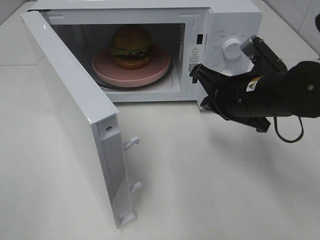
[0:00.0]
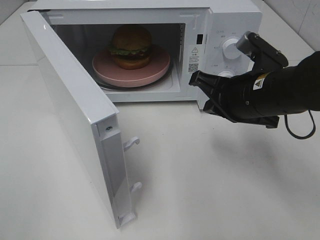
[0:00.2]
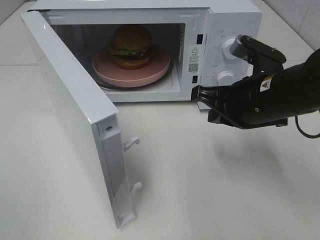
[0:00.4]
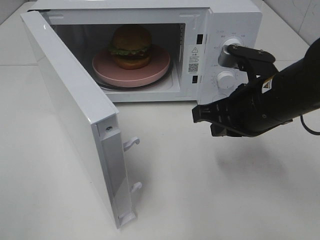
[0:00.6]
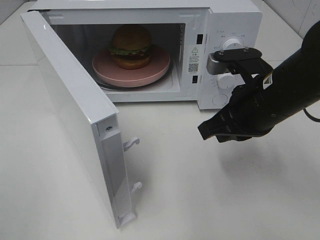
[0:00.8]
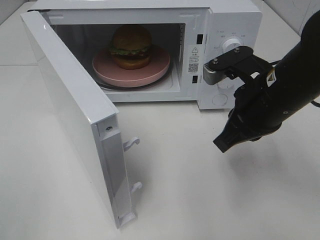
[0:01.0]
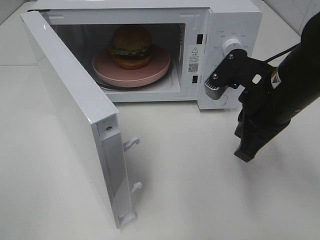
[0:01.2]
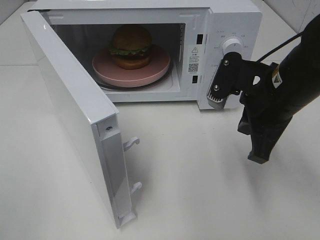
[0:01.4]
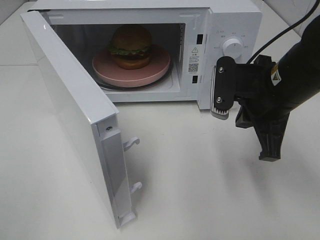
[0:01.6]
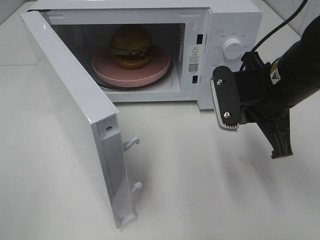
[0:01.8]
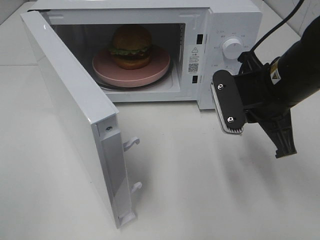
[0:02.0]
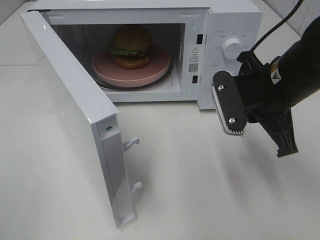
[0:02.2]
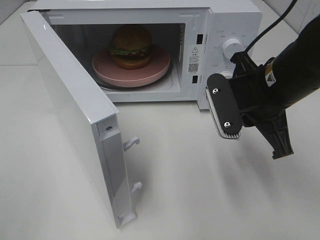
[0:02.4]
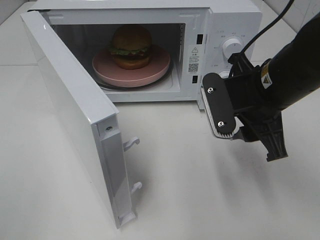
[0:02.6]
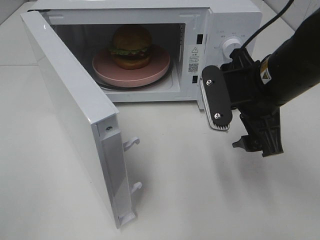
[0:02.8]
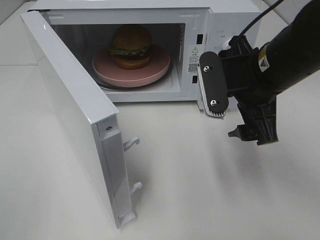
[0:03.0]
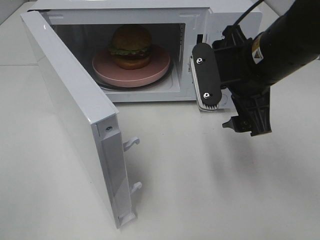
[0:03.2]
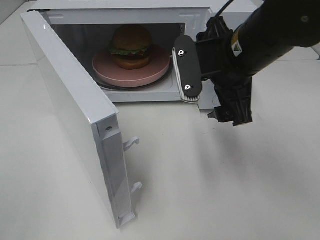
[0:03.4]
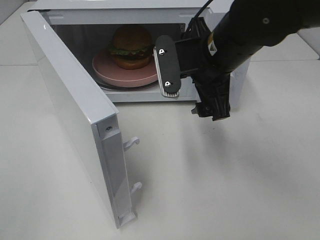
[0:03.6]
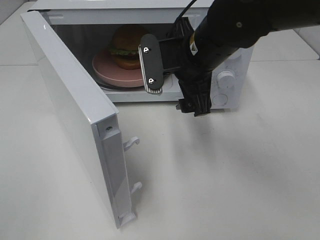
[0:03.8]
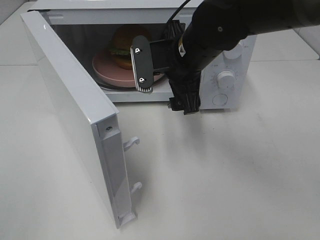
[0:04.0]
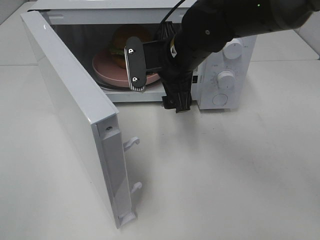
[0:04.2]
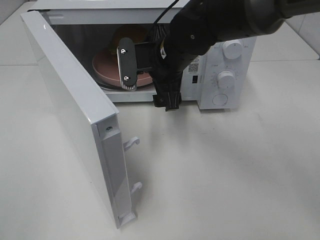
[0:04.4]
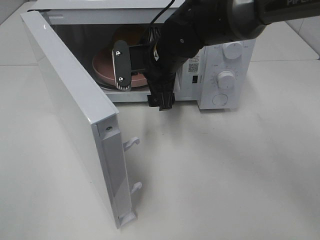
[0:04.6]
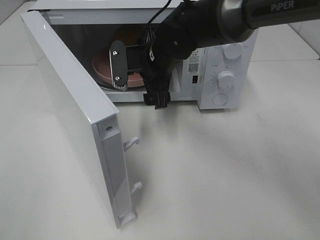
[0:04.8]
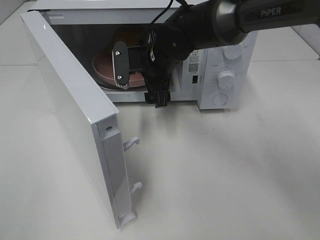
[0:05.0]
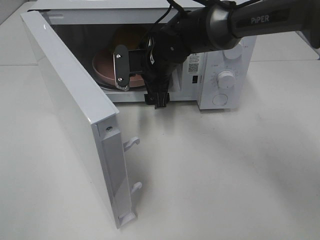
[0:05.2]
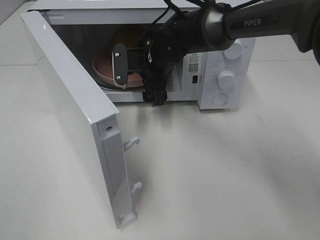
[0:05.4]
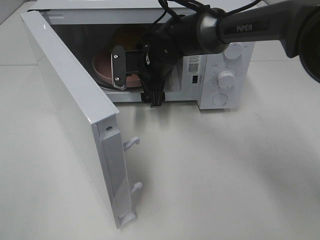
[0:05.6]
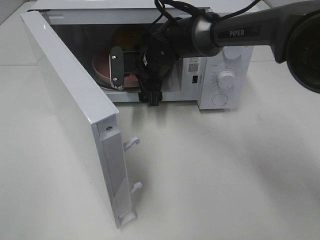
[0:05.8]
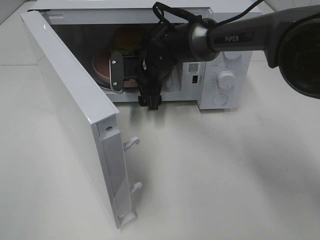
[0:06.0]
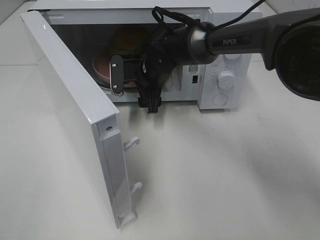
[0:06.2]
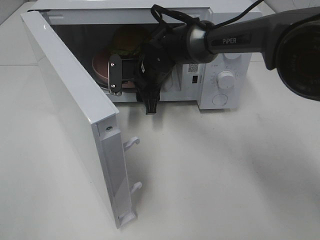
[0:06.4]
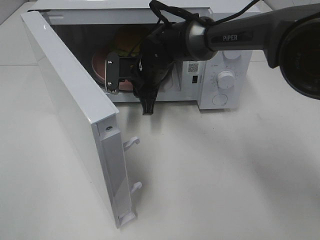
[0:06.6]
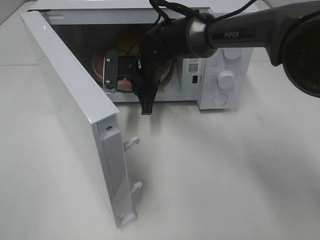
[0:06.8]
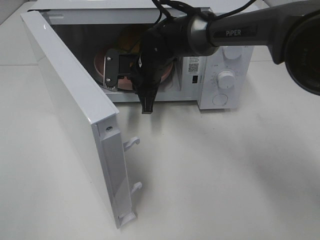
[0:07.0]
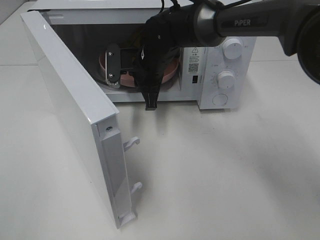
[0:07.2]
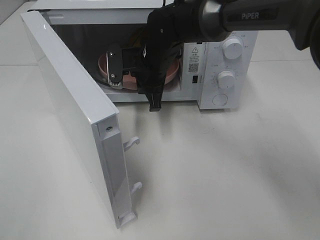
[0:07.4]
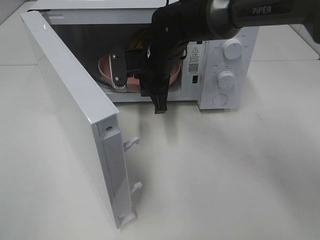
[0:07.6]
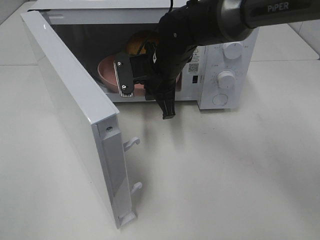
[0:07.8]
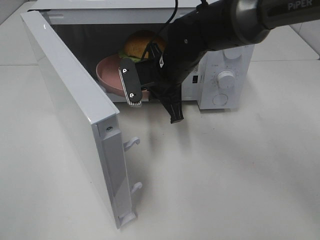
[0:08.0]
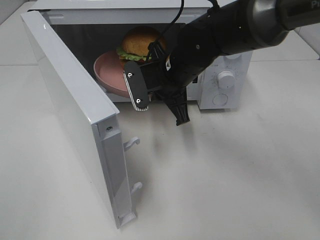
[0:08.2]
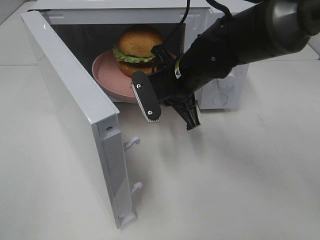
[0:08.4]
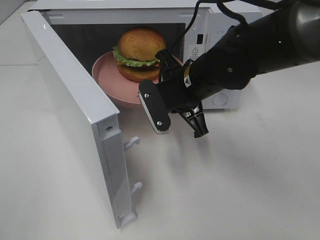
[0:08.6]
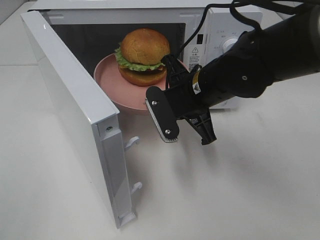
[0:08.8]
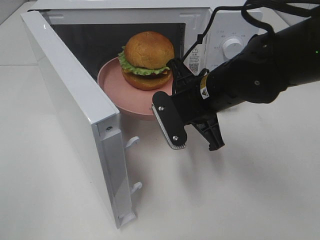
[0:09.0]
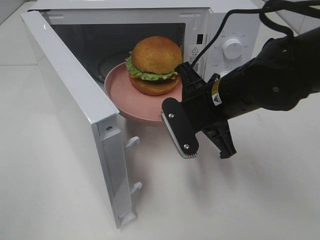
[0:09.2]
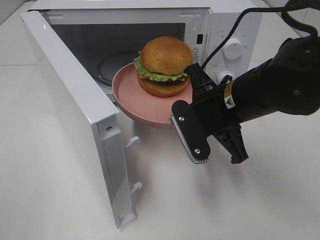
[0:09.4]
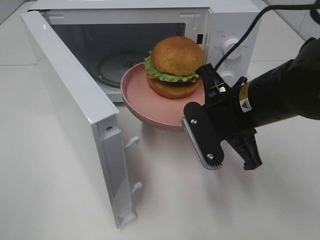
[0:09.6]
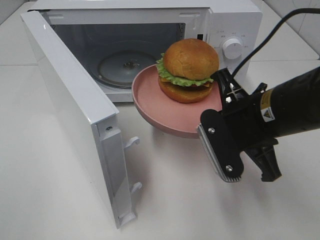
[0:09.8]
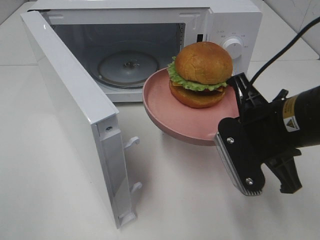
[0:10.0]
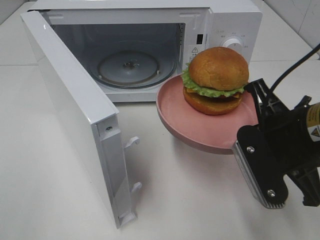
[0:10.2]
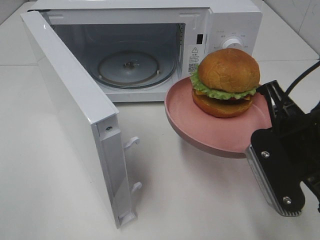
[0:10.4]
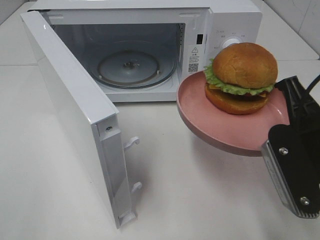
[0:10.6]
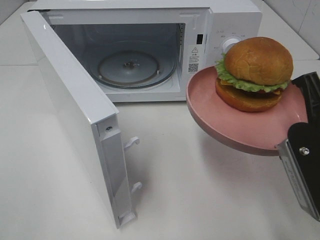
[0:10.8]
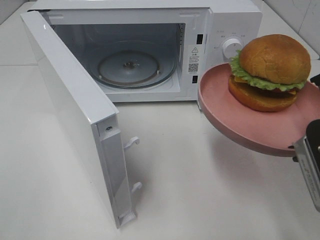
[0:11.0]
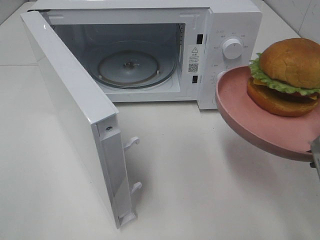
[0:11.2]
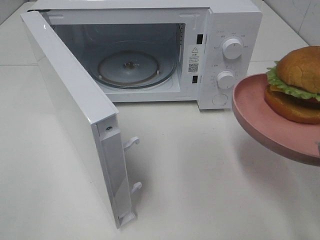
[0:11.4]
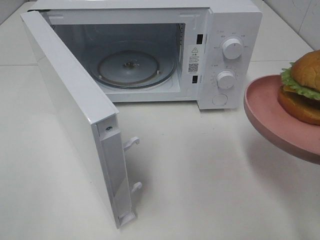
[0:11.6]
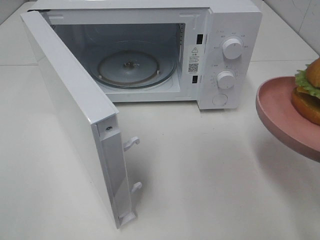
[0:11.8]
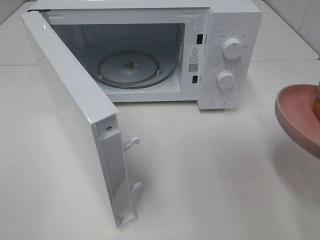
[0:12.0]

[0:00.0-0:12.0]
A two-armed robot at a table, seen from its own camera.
Task of the whole recording: Heat the burger.
Step, 0:00.0 to 0:07.0: Right hand: grab the plate with the hamburger.
0:01.6 to 0:03.0: The right gripper opens up.
0:03.0 to 0:04.4: The right gripper goes approximately 15 cm to the left and forward.
0:04.4 to 0:06.0: The right gripper goes about 10 cm forward and downward.
0:06.0 to 0:07.6: The right gripper ends up roughly 5 cm from where it was, and closes up.
0:07.6 to 0:09.0: The right gripper heads backward and to the right, covering approximately 15 cm.
0:09.0 to 0:10.4: The right gripper goes roughly 15 cm backward and to the right.
0:10.4 to 0:12.0: The right gripper shifts roughly 10 cm to the right and backward.

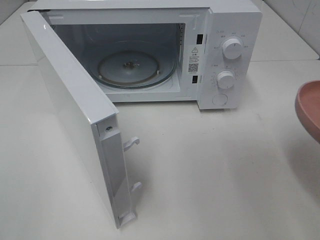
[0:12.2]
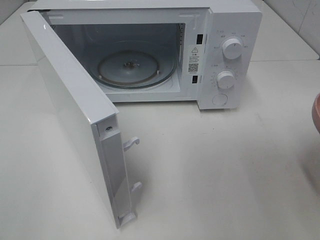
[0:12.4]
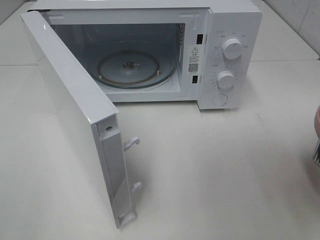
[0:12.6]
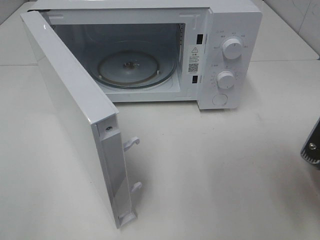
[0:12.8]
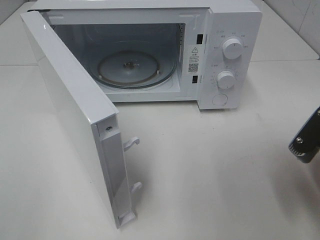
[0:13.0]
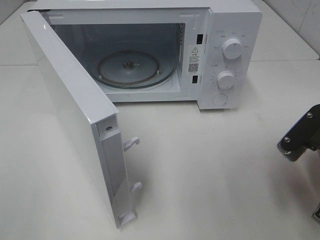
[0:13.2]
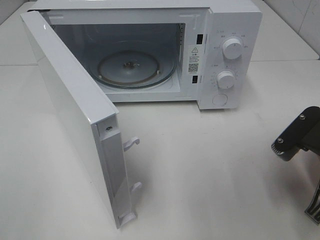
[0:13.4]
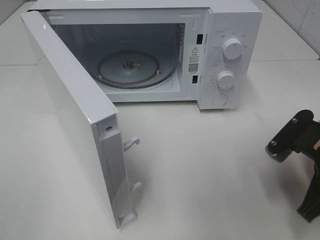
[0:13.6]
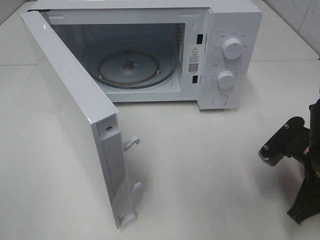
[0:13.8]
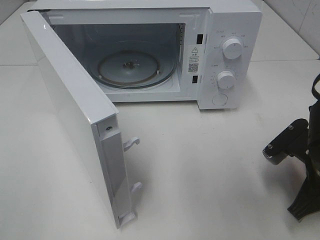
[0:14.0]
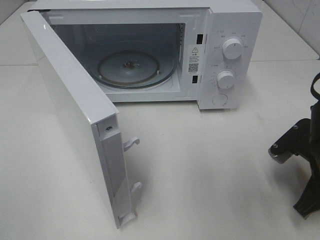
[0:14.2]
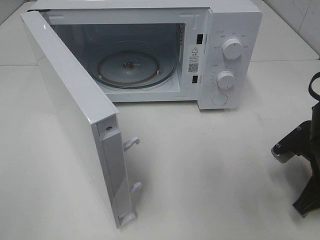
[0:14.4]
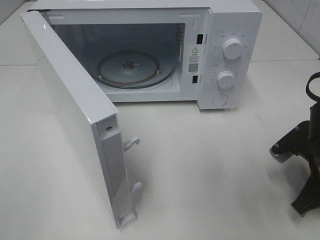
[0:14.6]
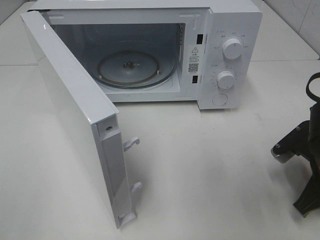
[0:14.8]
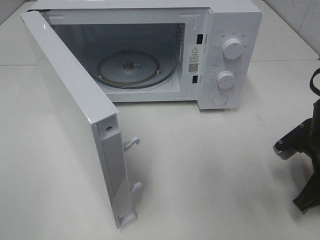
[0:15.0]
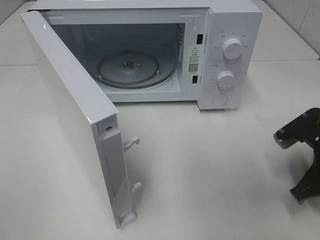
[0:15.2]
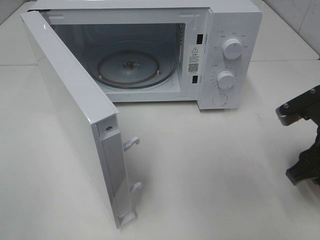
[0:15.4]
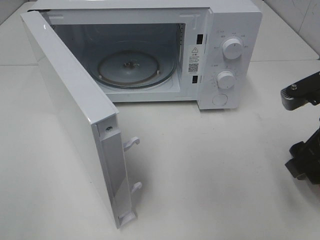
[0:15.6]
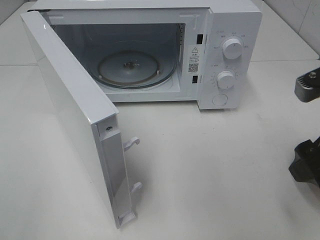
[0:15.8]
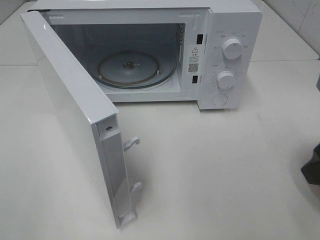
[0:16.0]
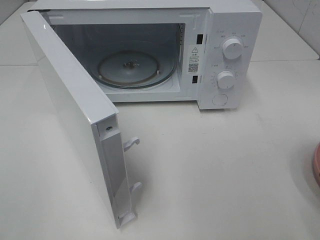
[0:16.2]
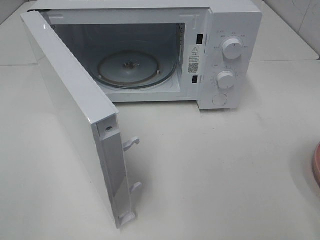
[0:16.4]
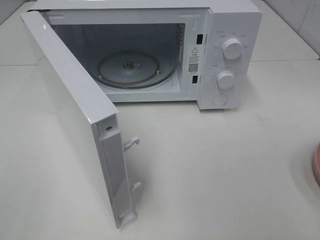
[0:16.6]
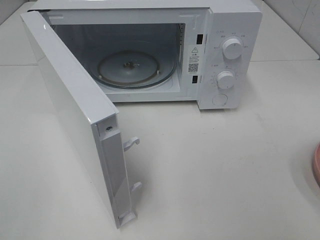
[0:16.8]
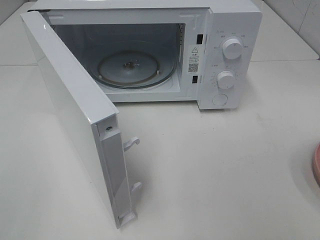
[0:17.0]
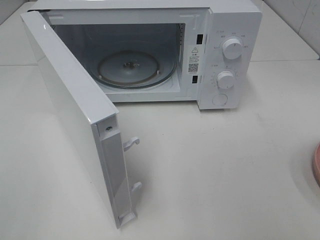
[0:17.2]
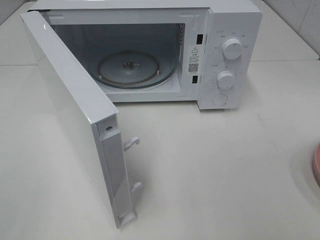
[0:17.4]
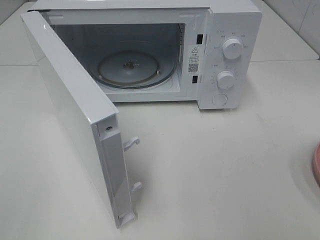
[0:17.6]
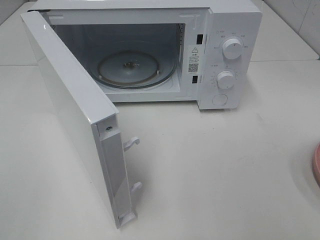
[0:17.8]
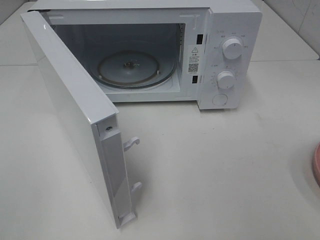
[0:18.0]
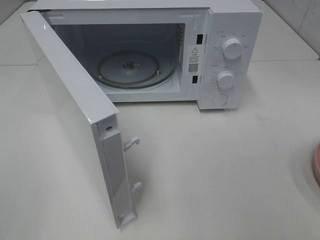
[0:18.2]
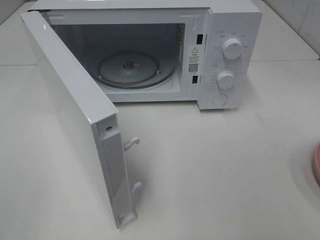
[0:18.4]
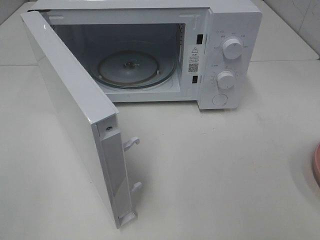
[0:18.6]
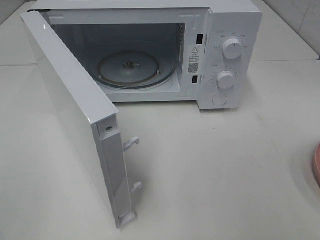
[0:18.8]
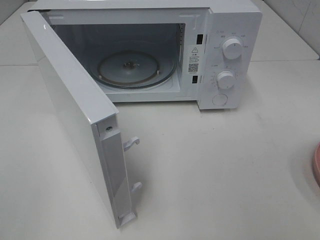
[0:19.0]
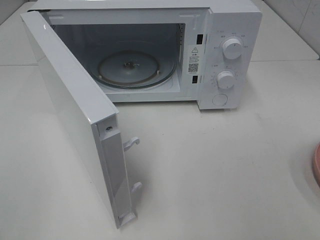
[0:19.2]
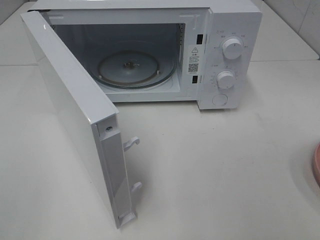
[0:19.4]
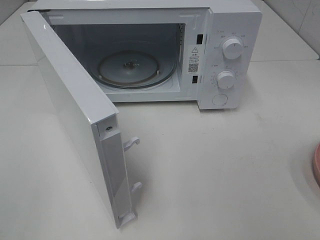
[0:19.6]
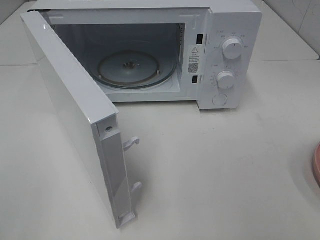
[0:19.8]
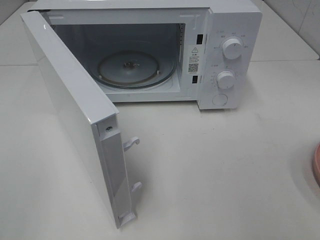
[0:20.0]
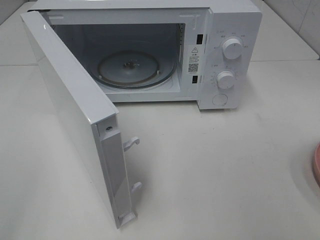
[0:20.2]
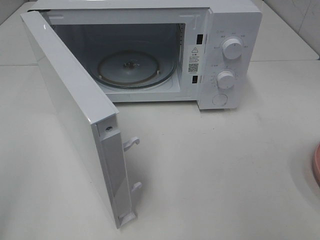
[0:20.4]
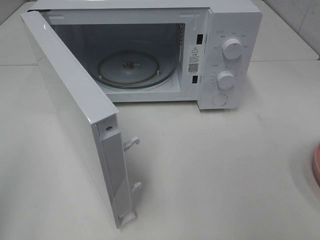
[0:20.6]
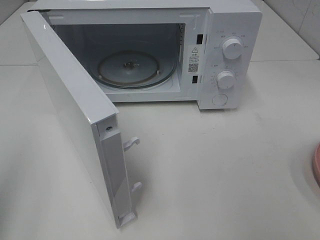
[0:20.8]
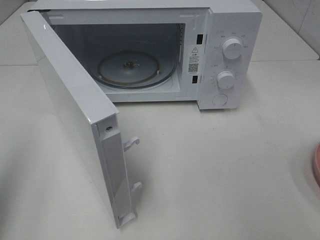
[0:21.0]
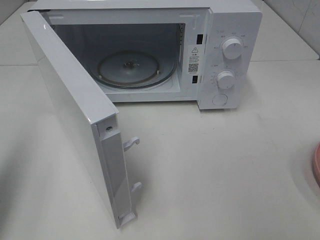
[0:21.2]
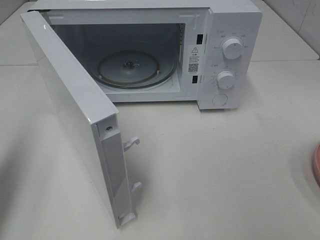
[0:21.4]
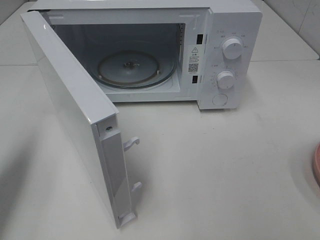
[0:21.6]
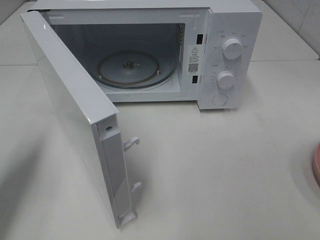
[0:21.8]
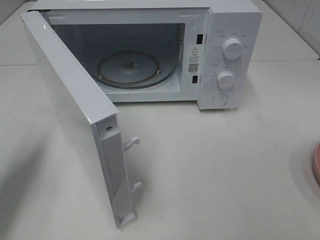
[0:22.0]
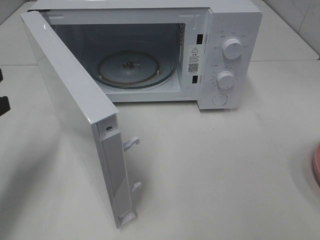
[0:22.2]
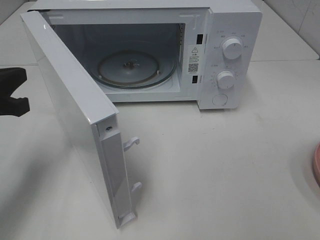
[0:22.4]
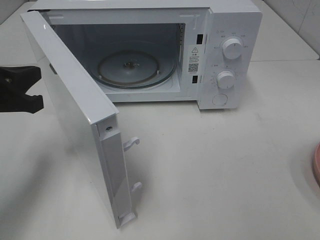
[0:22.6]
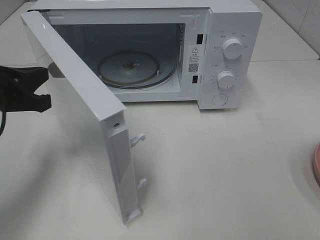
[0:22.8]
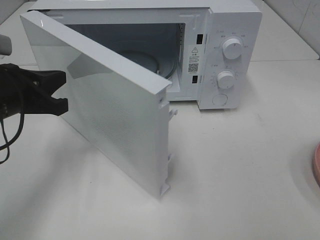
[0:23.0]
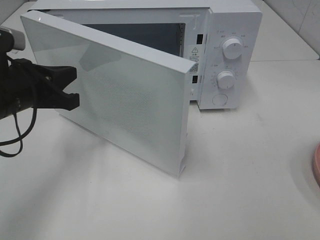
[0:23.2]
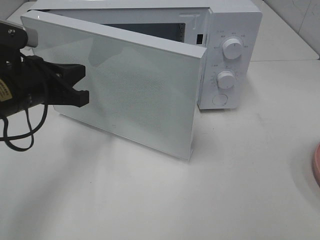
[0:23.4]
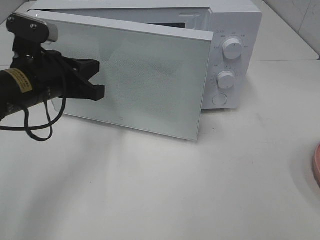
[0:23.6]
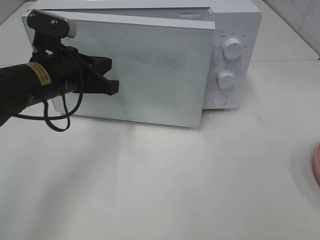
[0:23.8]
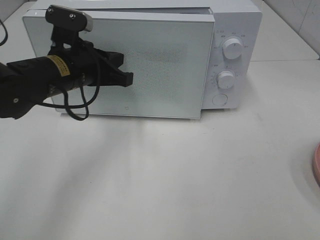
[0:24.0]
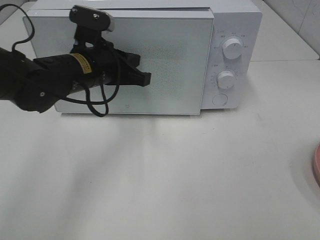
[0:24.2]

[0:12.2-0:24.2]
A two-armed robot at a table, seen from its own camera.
Task of the whole recording: Heat the burger.
Step, 0:12.2 to 0:14.6: Right hand: place the plate on the table.
0:12.2 to 0:13.8: The right gripper heads downward and forward, covering roughly 15 cm.
0:13.8 to 0:15.2: The right gripper opens.
0:15.2 to 0:16.6: The right gripper goes about 20 cm upward and backward.
0:18.2 to 0:19.8: Both grippers stay put.
0:19.8 to 0:21.2: The left gripper travels forward by about 15 cm, and closes.
0:21.2 to 0:22.6: The left gripper moves downward, forward and to the right, about 15 cm.
0:22.6 to 0:24.2: The left gripper goes approximately 20 cm to the right and forward.
